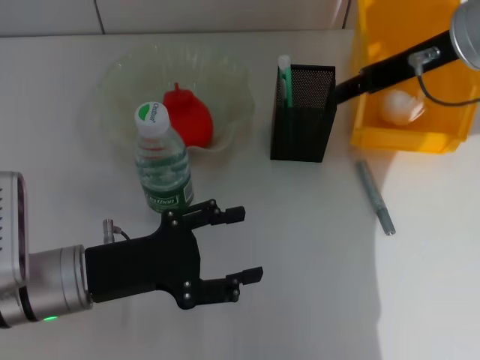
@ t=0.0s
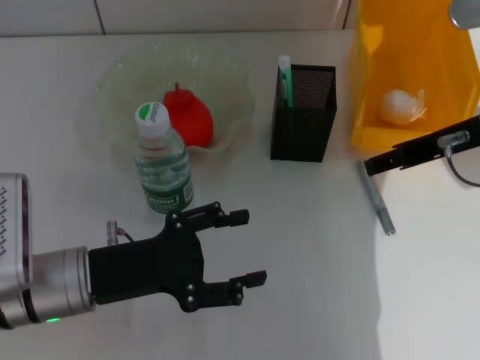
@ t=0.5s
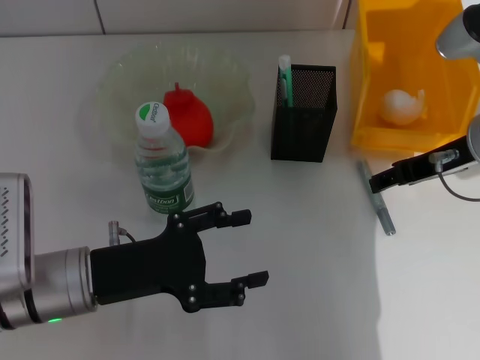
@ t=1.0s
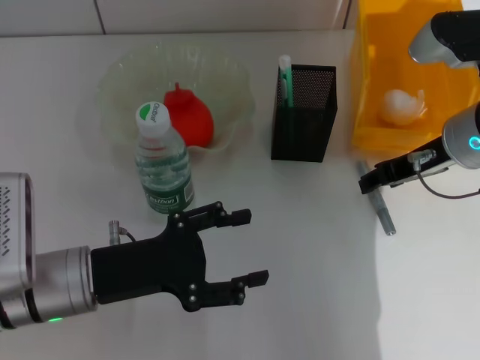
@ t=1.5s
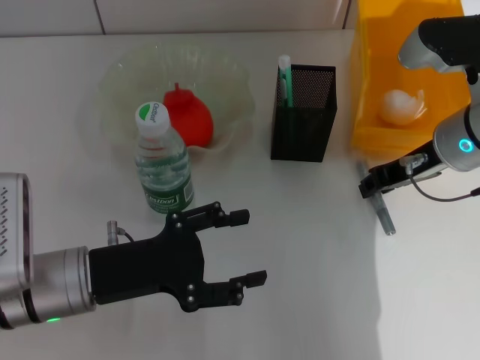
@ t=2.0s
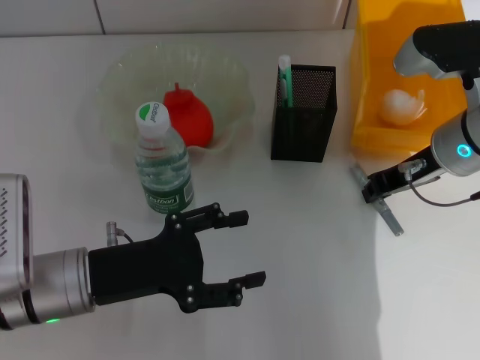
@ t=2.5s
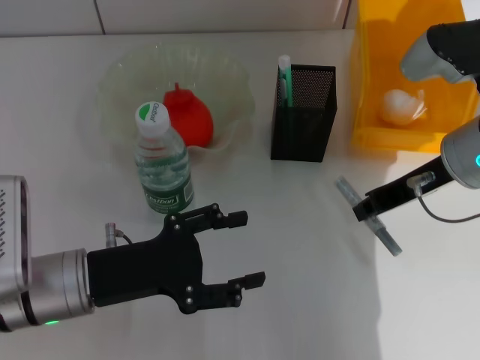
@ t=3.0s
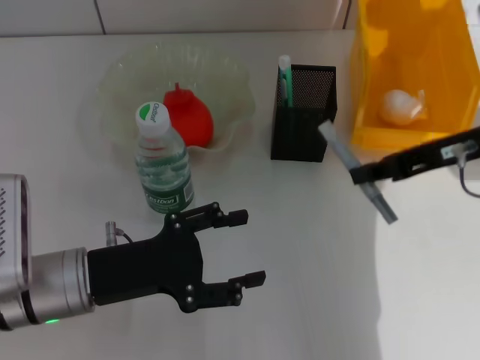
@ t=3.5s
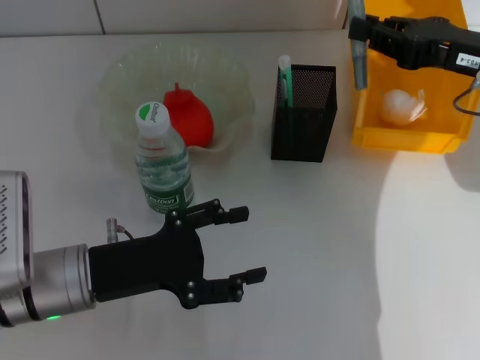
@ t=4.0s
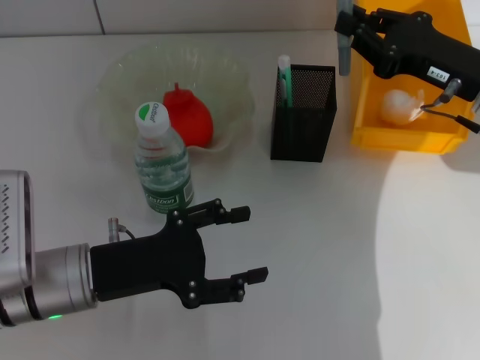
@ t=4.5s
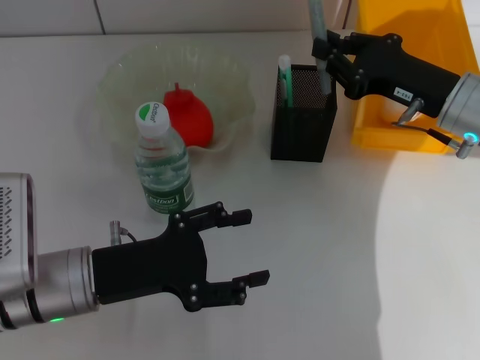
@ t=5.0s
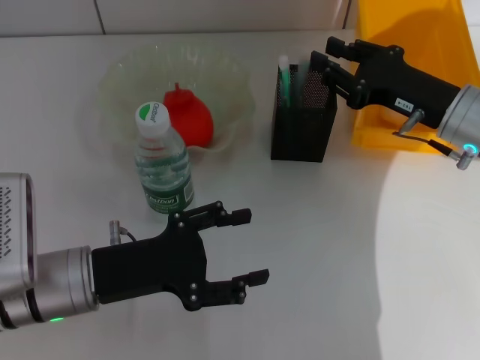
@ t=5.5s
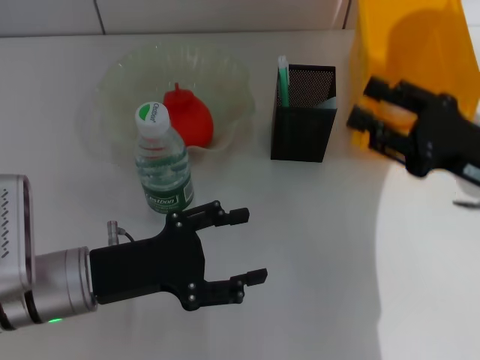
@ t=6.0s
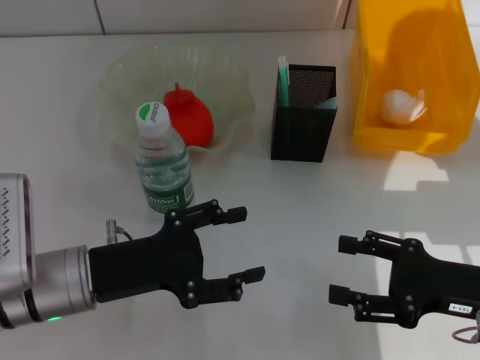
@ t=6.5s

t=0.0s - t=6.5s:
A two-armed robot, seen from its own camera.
Step, t=0.5s - t=2.0s: Grab the gray glue with the right hand.
Step, t=2.5s - t=5.5s: Place the gray glue into the pen holder with the right hand.
t=0.0s - t=2.0s: The right gripper shifts approximately 10 cm downward.
t=4.5s - t=6.5s: The right gripper goes approximately 15 cm backward and downward, and opens its fingers.

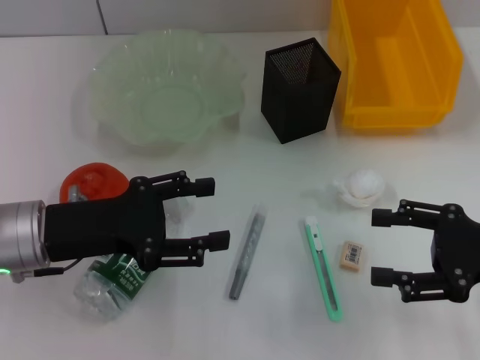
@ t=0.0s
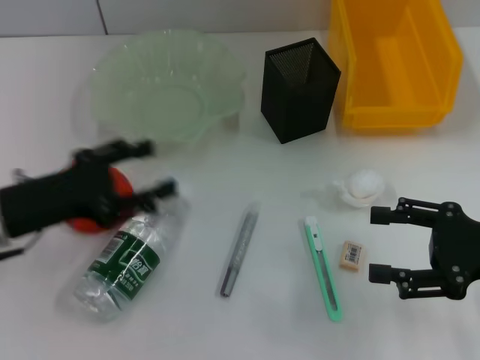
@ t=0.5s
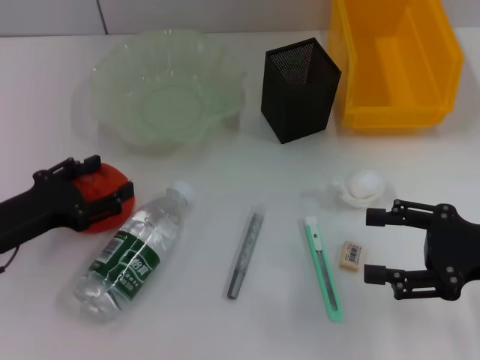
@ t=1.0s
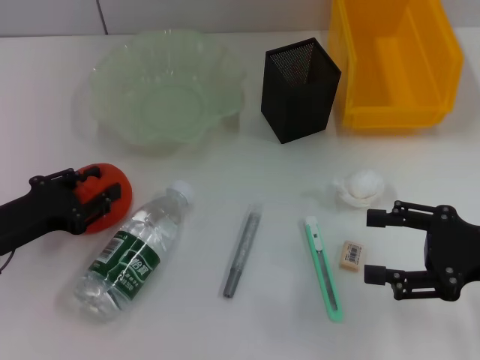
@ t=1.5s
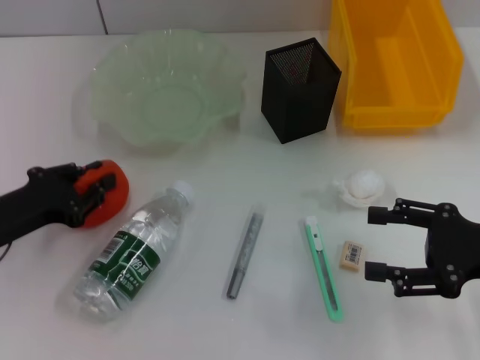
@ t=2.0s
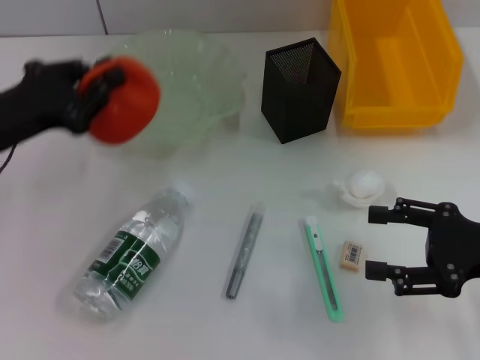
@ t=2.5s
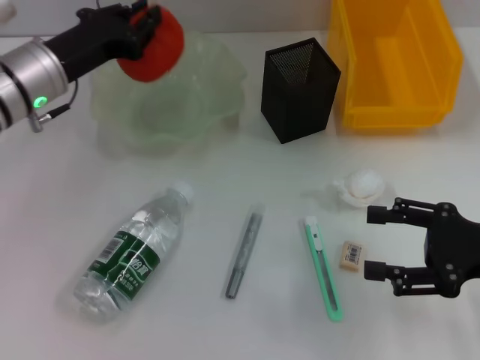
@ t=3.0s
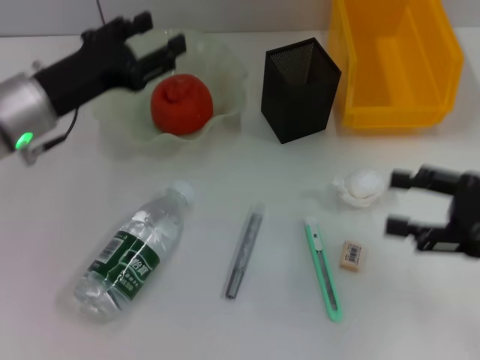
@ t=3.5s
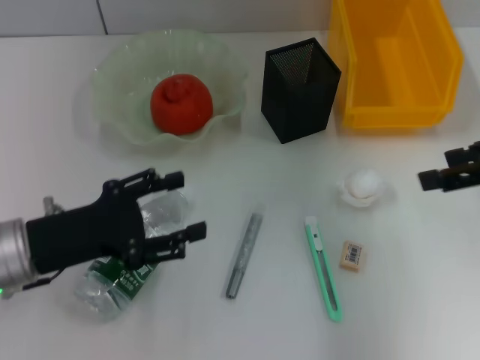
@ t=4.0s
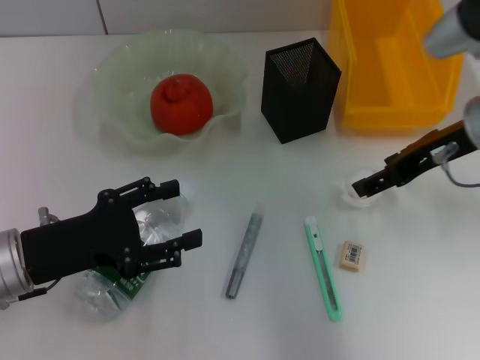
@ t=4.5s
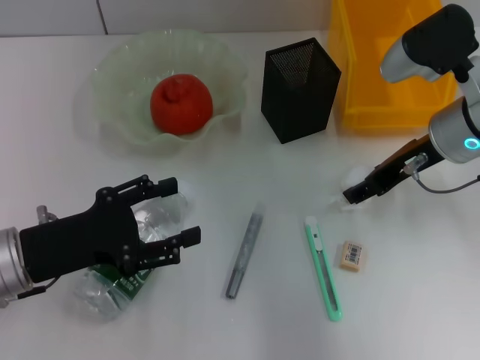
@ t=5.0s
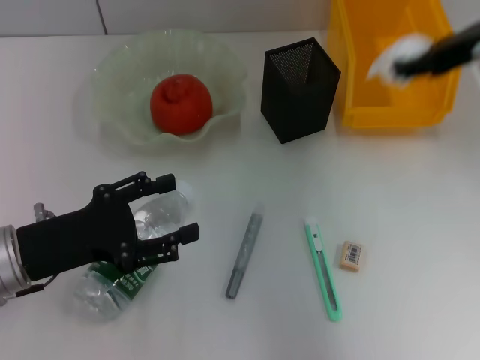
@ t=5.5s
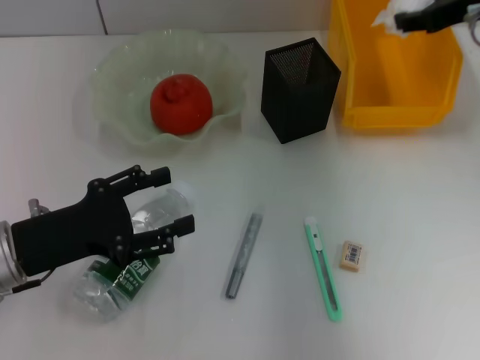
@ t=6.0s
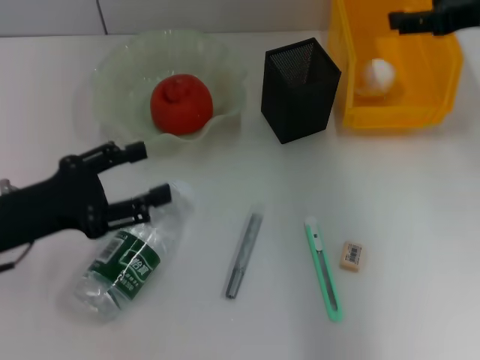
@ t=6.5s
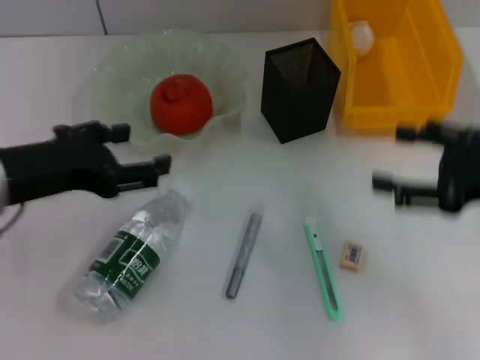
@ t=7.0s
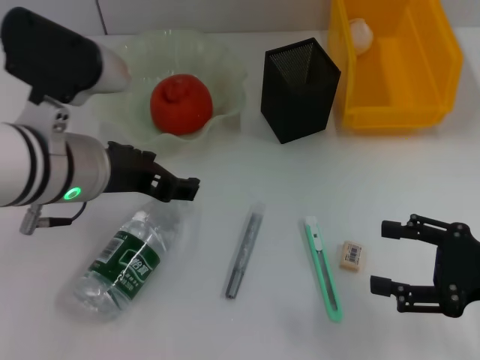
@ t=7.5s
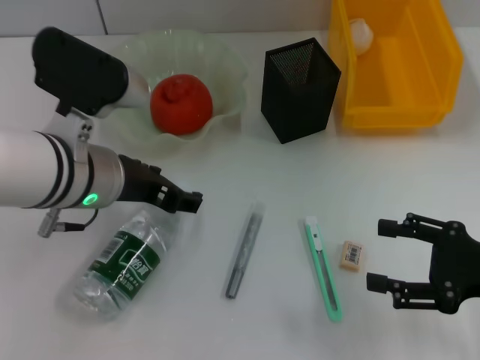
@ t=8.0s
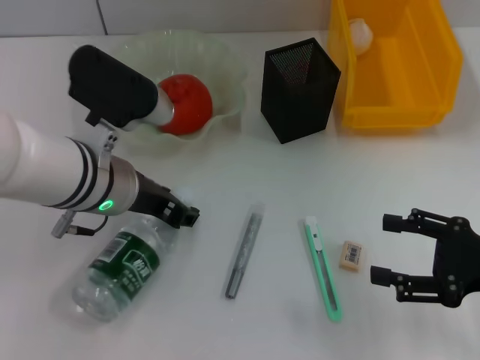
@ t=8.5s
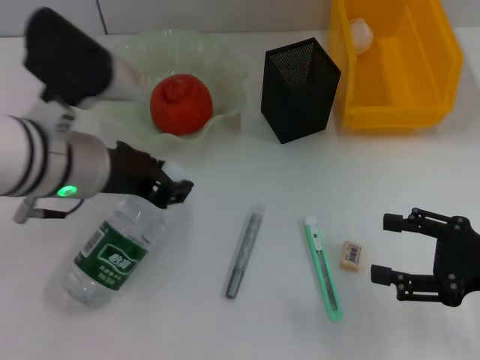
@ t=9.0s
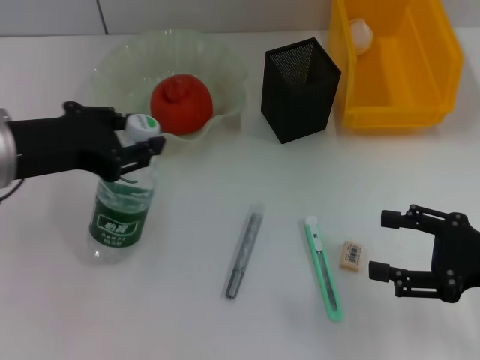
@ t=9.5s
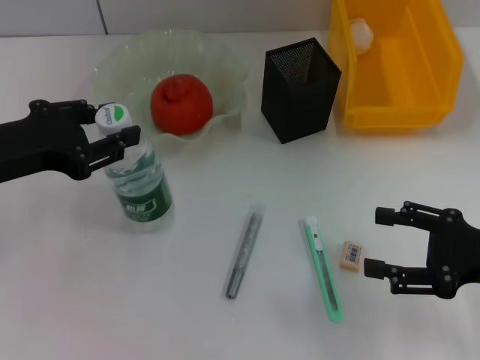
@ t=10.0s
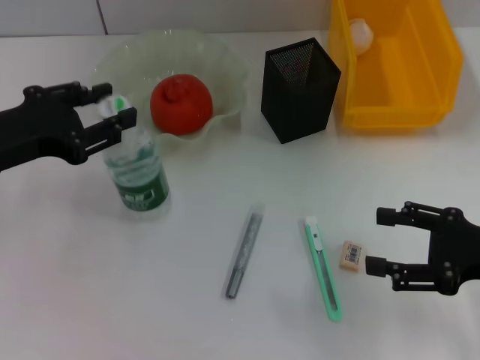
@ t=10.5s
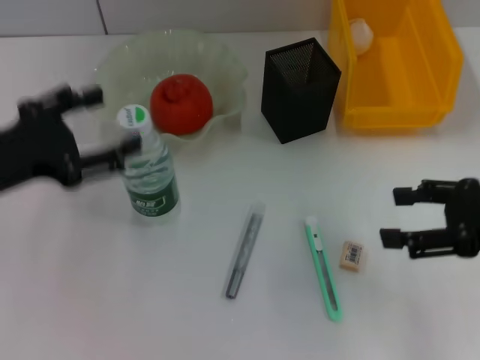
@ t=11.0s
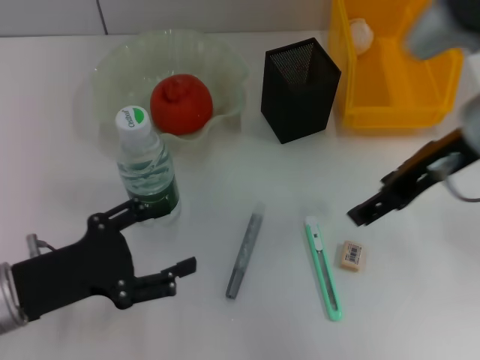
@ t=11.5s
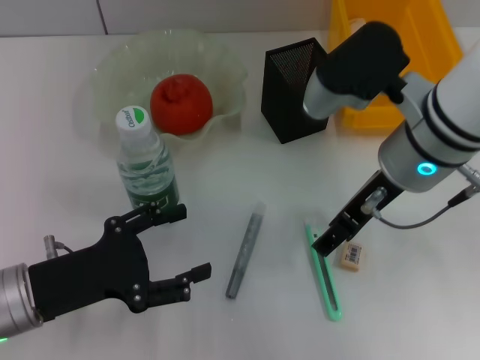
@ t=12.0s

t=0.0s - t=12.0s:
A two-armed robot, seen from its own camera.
Step, t=0.0s - t=1.5s: Grab the orange with the left hand.
Step, t=2.0s - t=3.5s: Place the orange into the fruit bowl with the left hand.
Step, t=4.0s - t=4.5s: Grab the paper ball with the right hand.
Step, t=5.5s - t=6.5s: Place the paper ball into the trash can with the right hand.
Step, t=7.0s - t=8.5s: Grab the water bottle with the left hand.
Step, t=9.0s - t=10.5s: Place the water bottle on the table with the left hand.
t=0.0s - t=2.0s: The left gripper travels to the left by about 5 cm, and closes.
t=2.0s - t=4.0s: The right gripper is displaced upward and forward by approximately 15 cm. The left gripper is displaced to the right by some 5 cm, travels forward and back again, some 15 cm each way, and opens its fingers.
t=4.0s - t=6.0s: The right gripper is displaced forward by approximately 15 cm, and closes up.
t=6.0s - t=8.0s: The right gripper goes roughly 25 cm backward and downward, and opens up; the left gripper goes approximately 15 cm to the right, upward and forward.
t=8.0s - t=10.0s: The left gripper goes some 10 cm to the left, and closes its fingers.
t=10.0s - t=12.0s: The left gripper shifts approximately 15 cm downward and backward, and opens. Meanwhile the right gripper moves to the left, forward and upward, approximately 20 cm.

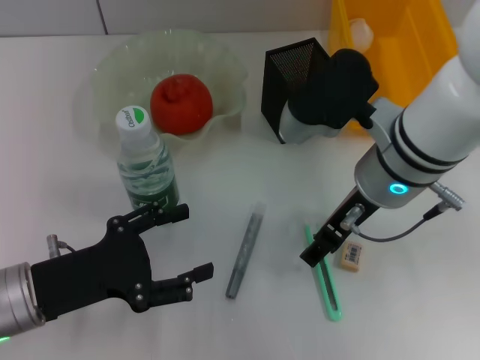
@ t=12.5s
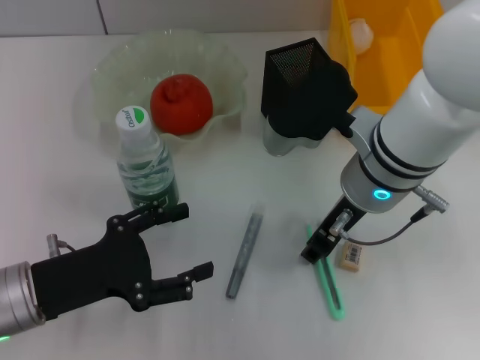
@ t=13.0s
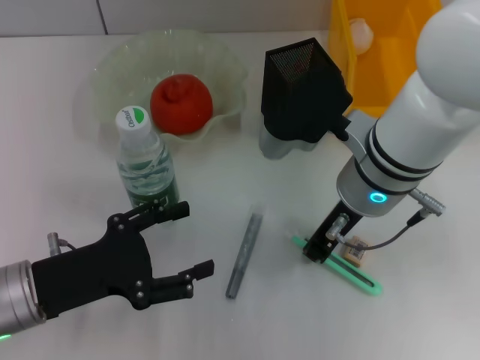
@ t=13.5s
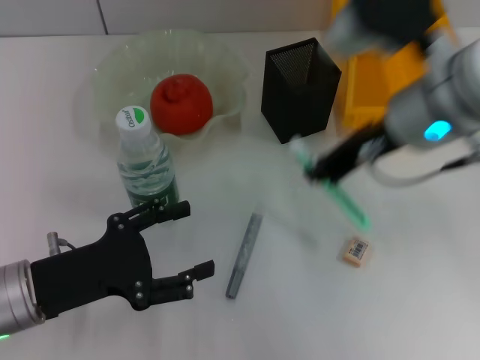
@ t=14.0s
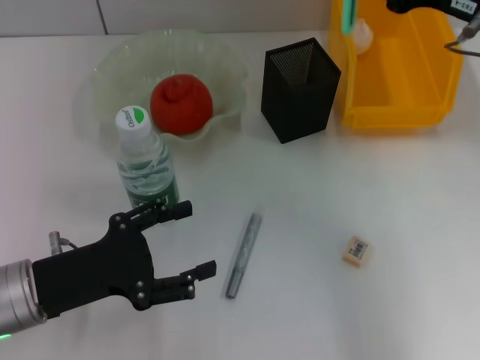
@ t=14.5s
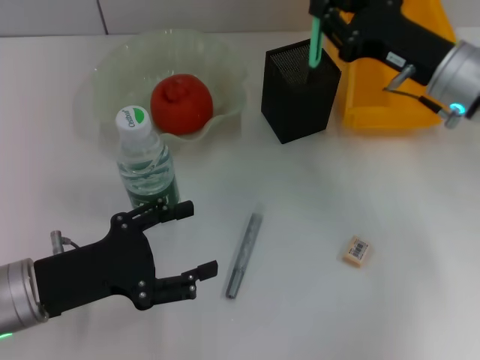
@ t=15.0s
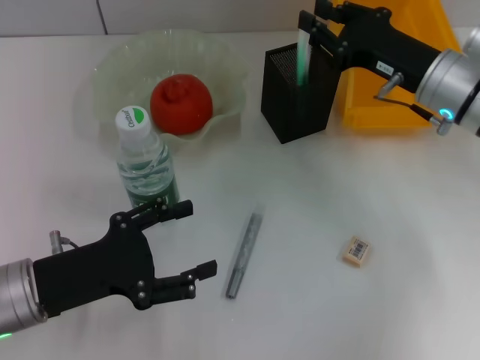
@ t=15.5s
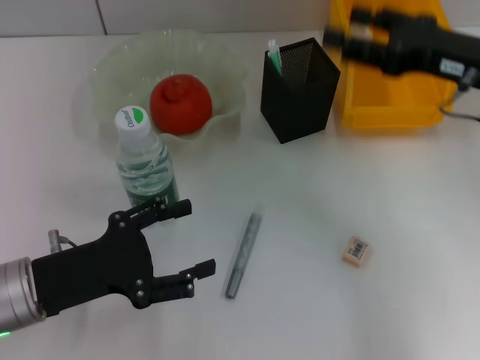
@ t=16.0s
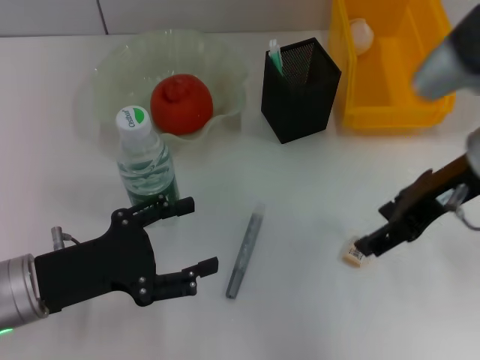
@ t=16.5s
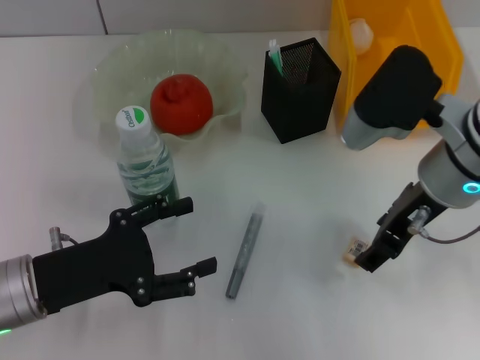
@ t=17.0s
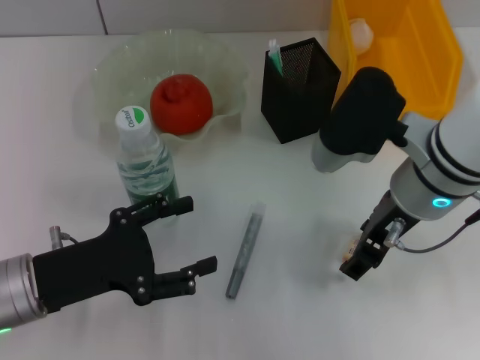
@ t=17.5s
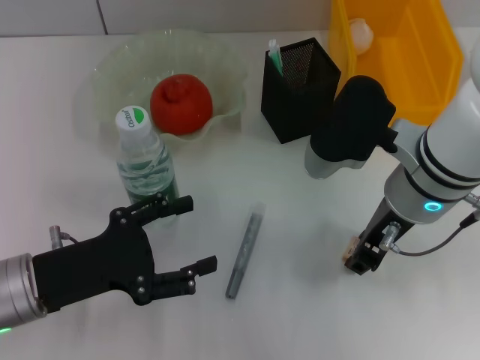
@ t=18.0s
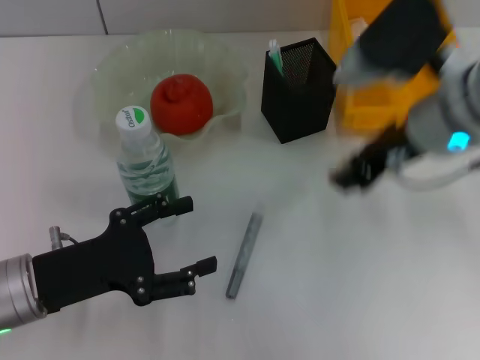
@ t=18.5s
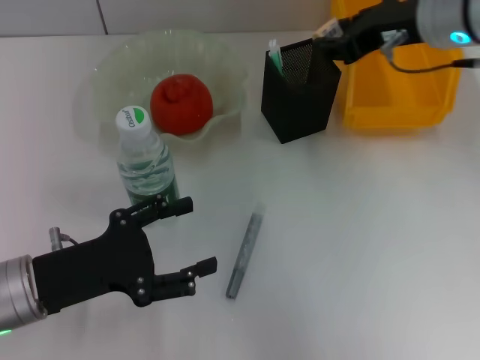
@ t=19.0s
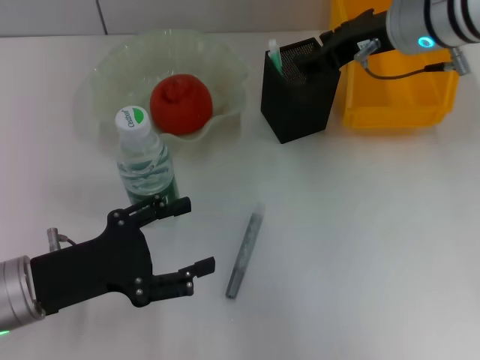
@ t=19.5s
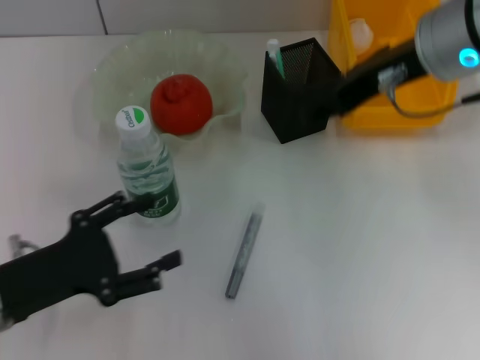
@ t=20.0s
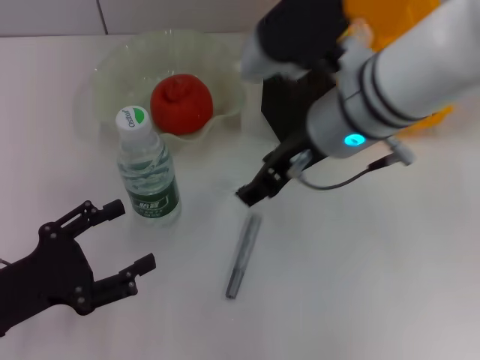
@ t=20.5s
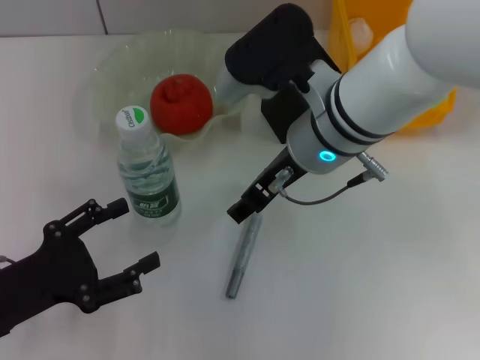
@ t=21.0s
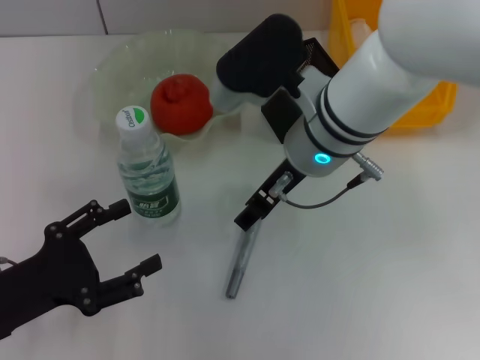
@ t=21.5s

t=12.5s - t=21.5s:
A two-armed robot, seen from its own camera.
Step, t=13.5s - t=15.5s: Place the blue utility knife into the pen holder with the right hand.
Step, t=16.0s - t=17.5s: Grab the eraser with the right hand.
Step, t=18.0s - t=19.5s: Put the eraser into the pen holder with the right hand.
t=12.5s - t=14.5s: The right gripper moves to the right and upward, roughly 15 cm, and closes.
t=14.5s - t=17.0s: The right gripper travels to the left by roughly 10 cm, and opens its fingers.
t=17.0s - t=19.5s: The right gripper heads forward, covering approximately 10 cm, and closes up.
t=19.5s - t=21.5s: The right gripper is displaced to the left and backward by some 10 cm, and opens up.
